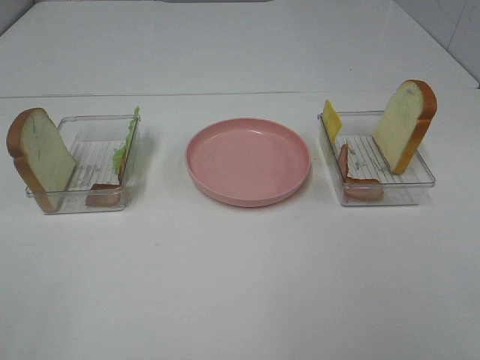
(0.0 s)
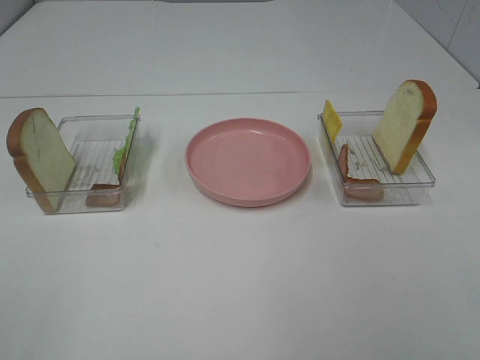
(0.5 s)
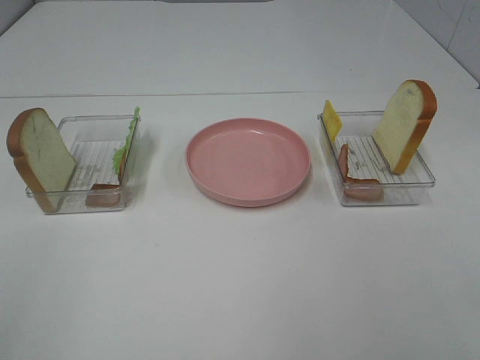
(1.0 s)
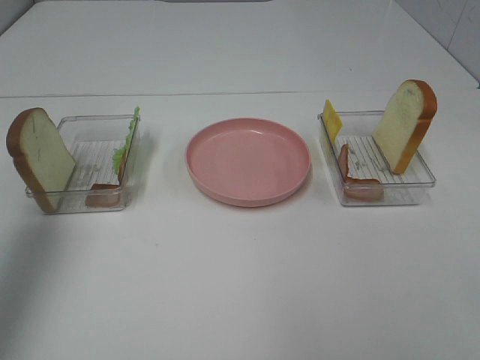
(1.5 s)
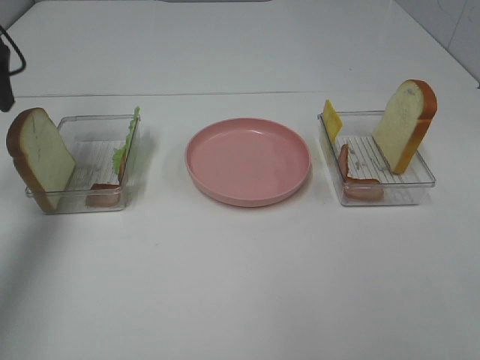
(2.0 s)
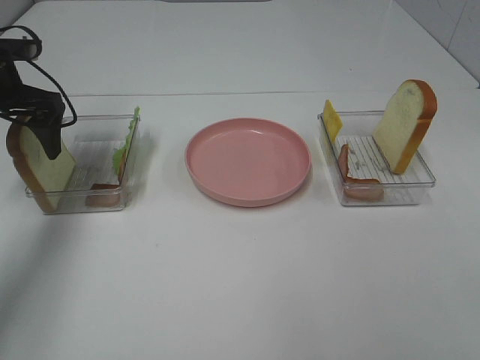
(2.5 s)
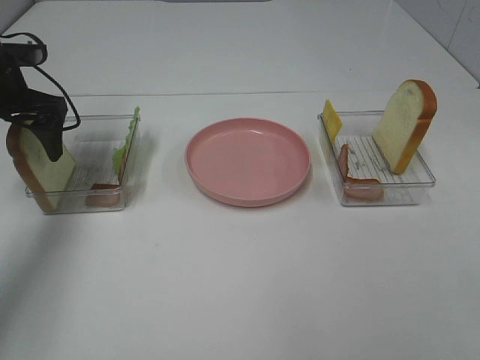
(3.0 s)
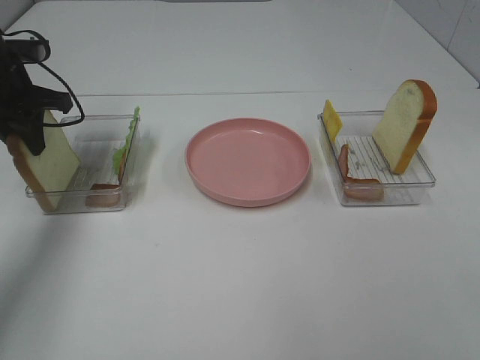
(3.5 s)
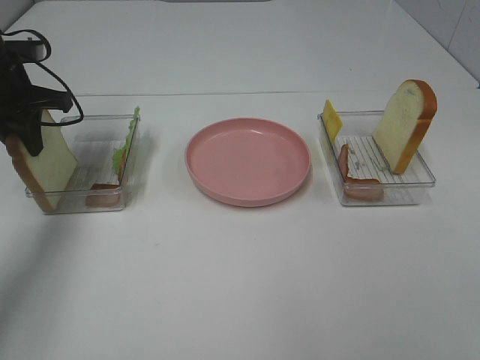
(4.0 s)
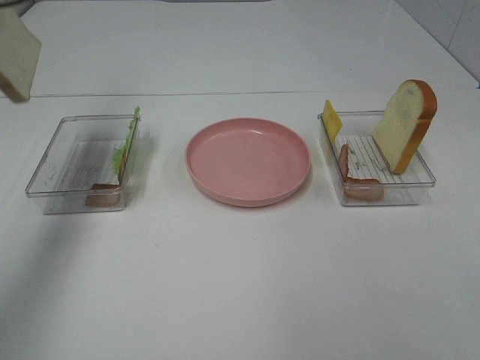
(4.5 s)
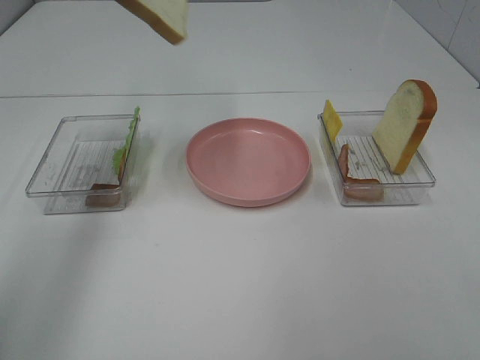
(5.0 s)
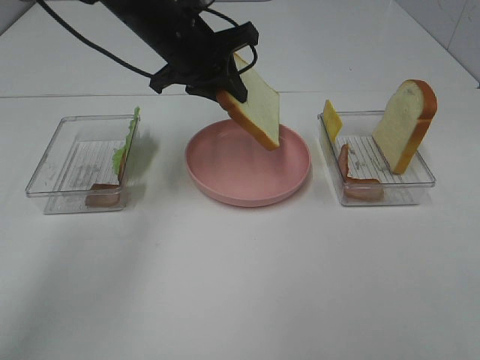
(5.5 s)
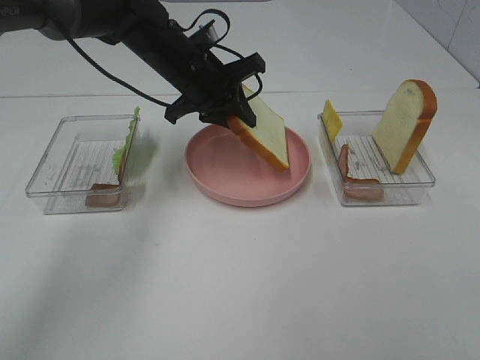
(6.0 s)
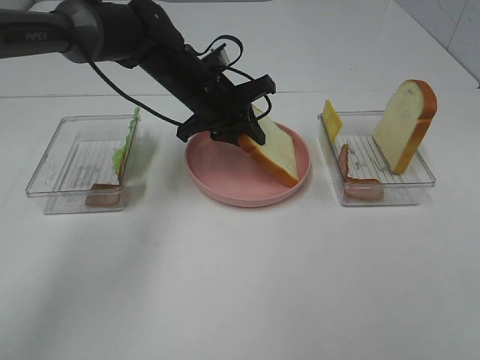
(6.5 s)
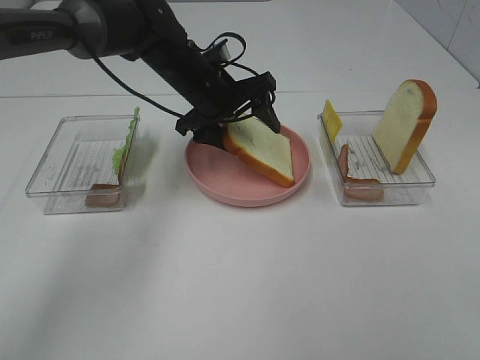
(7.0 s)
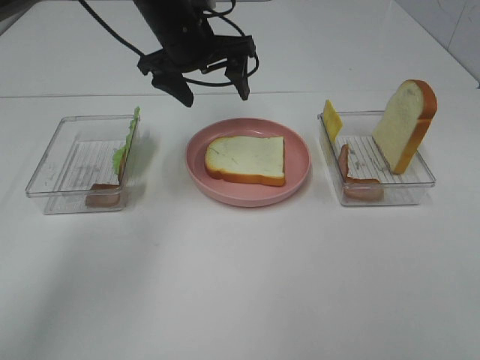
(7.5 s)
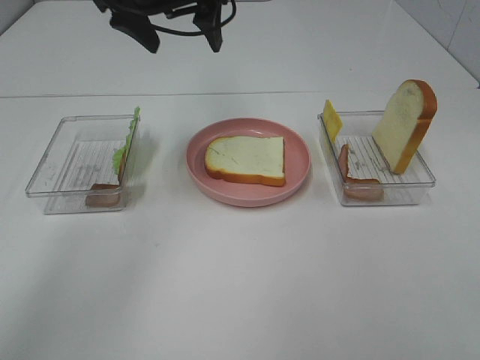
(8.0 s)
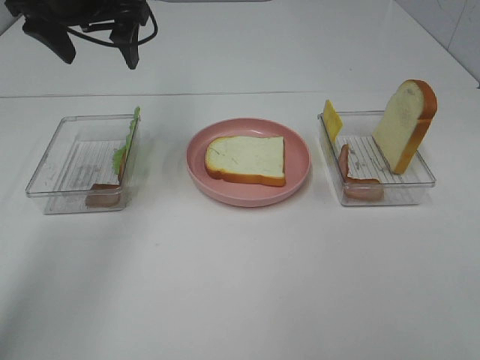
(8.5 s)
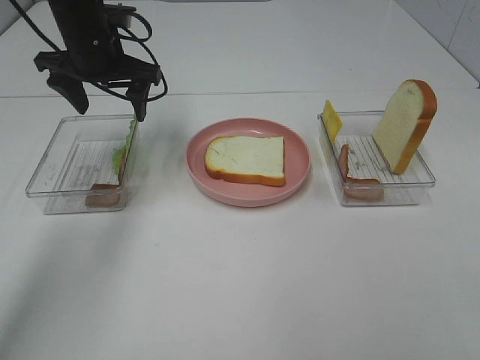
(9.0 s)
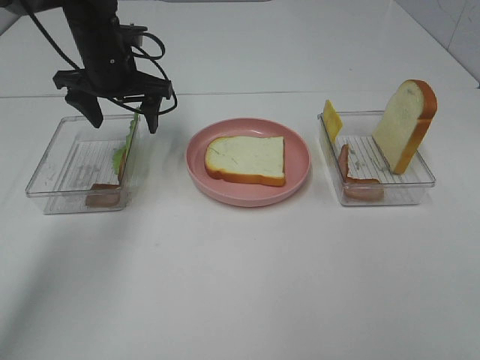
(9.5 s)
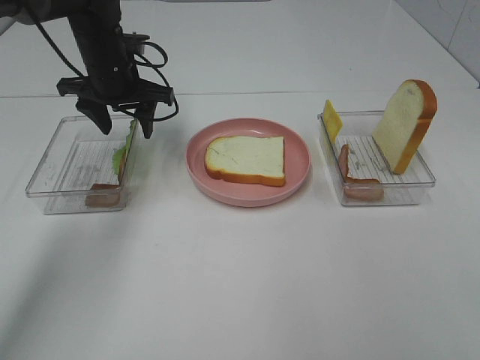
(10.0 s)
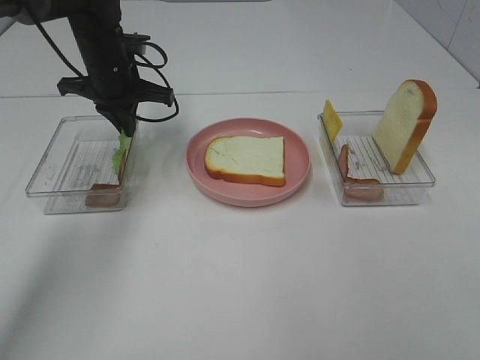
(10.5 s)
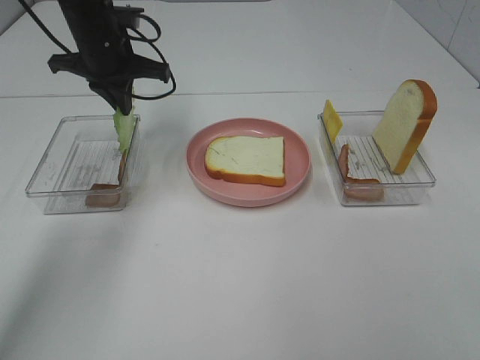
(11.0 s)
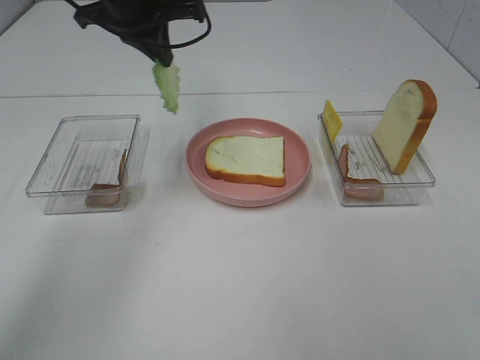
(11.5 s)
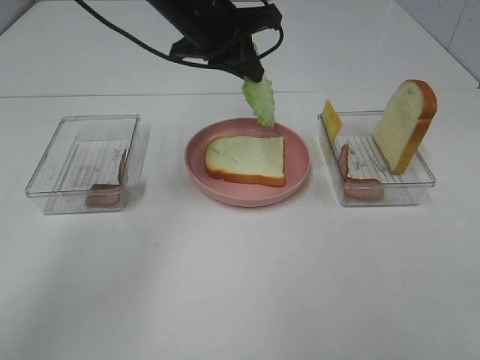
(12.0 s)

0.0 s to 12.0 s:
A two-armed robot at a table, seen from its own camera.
Task of the whole recording: Make sandwiches.
Step, 0.0 to 3.5 s: Left hand:grab the bread slice.
Step, 4.0 to 7.0 s: Left hand:place the bread slice on the plate.
Step, 7.5 to 10.5 s: Left hand:grab the lettuce slice.
0.0 to 2.0 s: The left gripper heads forward, covering about 40 cm.
2.0 to 4.0 s: The left gripper travels downward by some 5 cm, and closes its fingers.
4.0 to 6.0 s: The left gripper is displaced to the right by some 20 cm.
6.0 to 8.0 s: The left gripper heads upward, covering roughly 15 cm, and opens up.
8.0 to 10.0 s: The left gripper heads downward and to the left, covering some 15 cm.
10.0 to 12.0 s: The left gripper moves to the right and upward, some 15 cm, and closes.

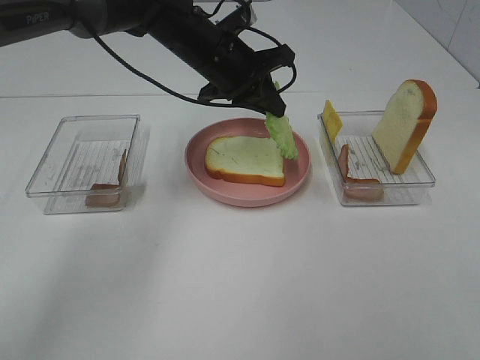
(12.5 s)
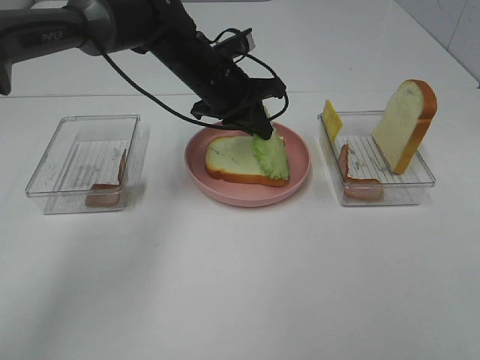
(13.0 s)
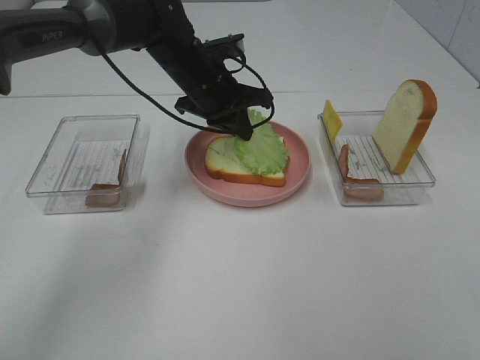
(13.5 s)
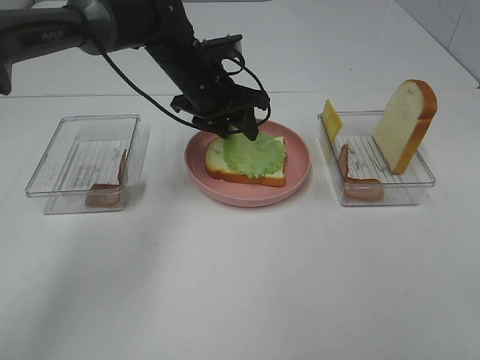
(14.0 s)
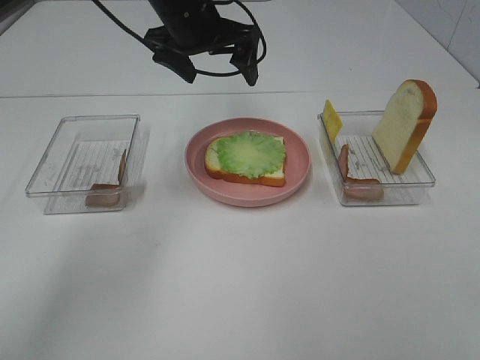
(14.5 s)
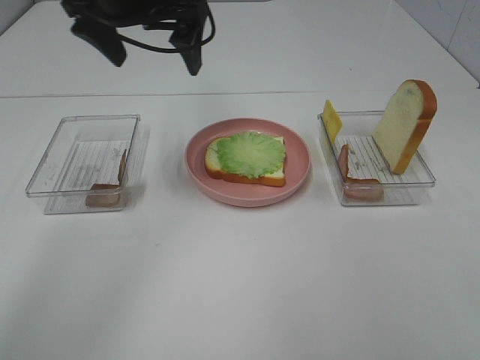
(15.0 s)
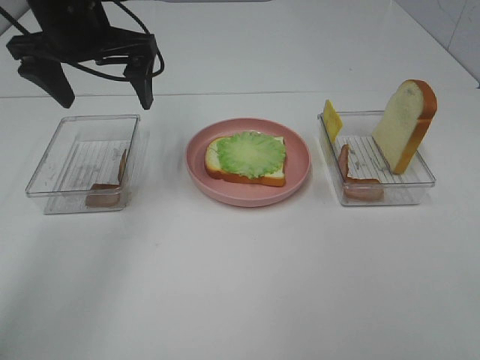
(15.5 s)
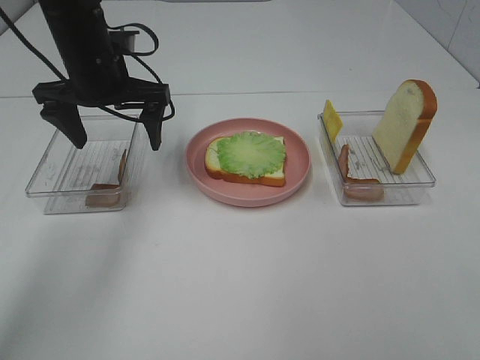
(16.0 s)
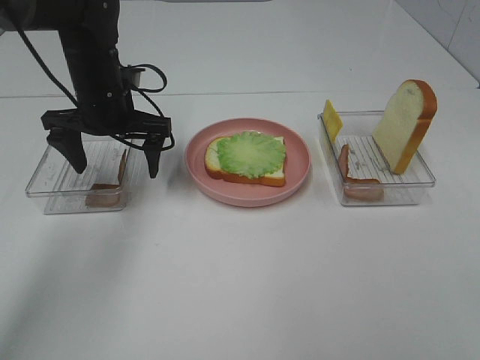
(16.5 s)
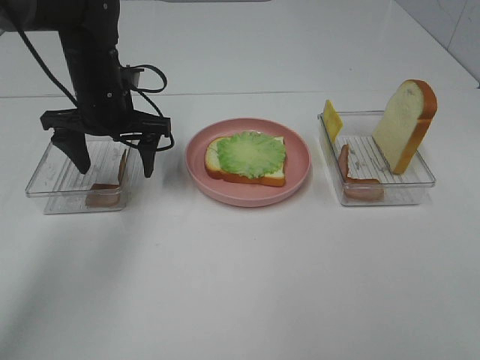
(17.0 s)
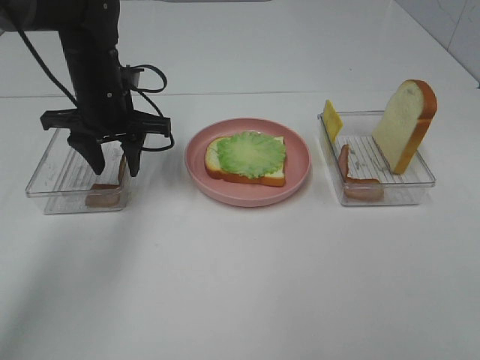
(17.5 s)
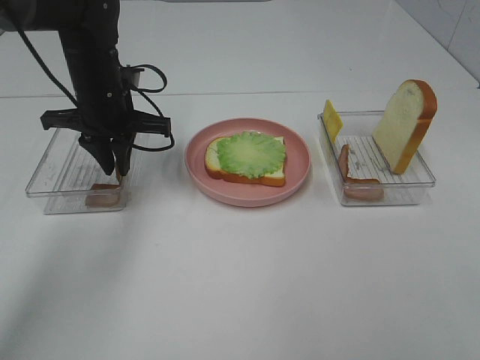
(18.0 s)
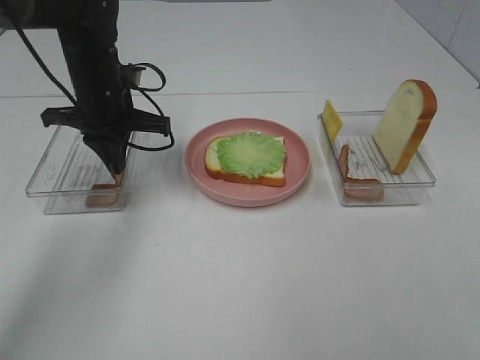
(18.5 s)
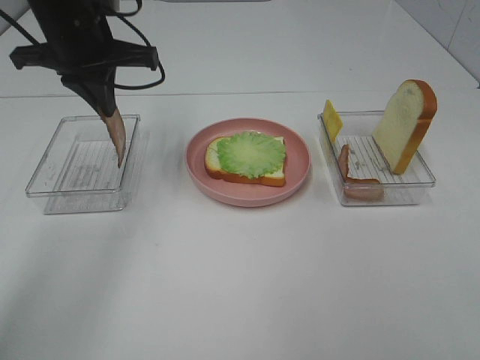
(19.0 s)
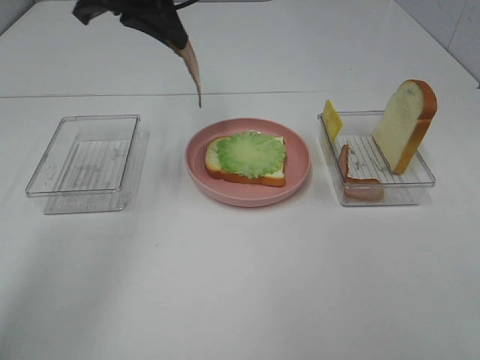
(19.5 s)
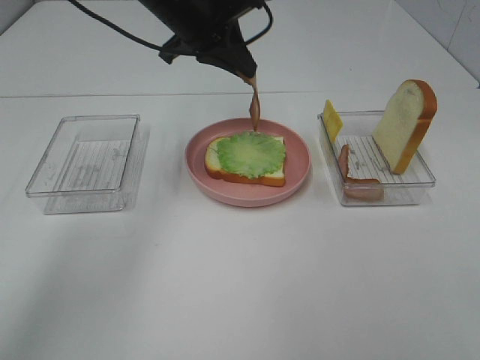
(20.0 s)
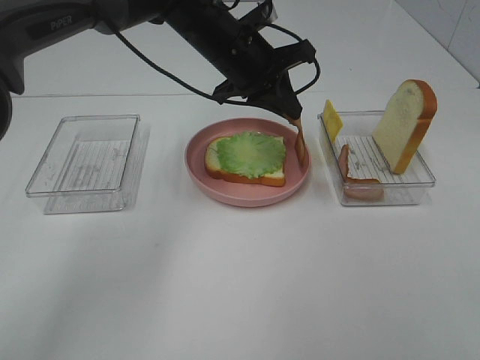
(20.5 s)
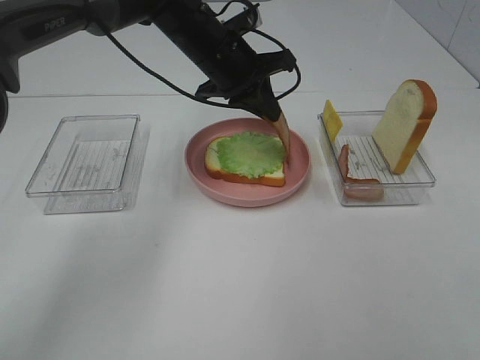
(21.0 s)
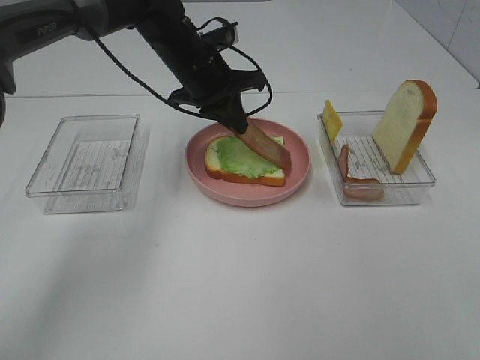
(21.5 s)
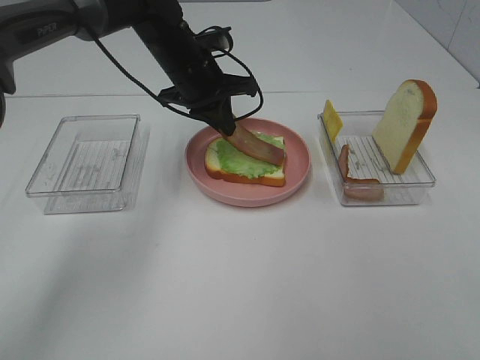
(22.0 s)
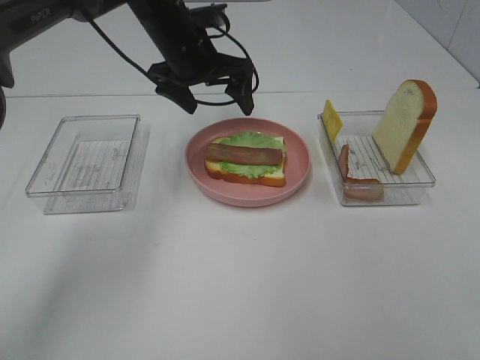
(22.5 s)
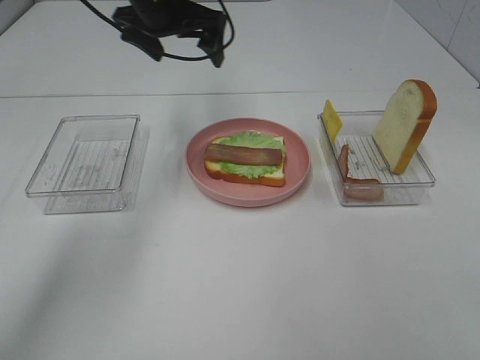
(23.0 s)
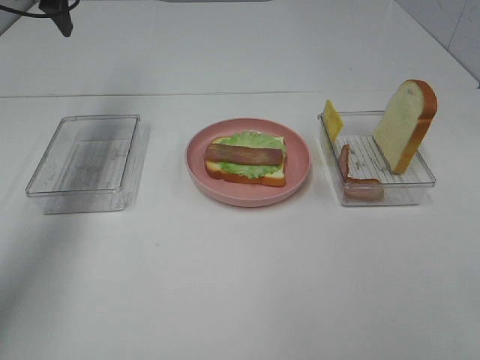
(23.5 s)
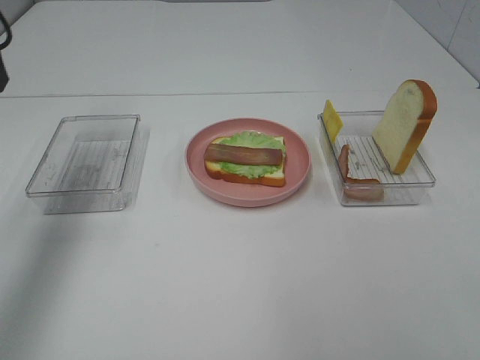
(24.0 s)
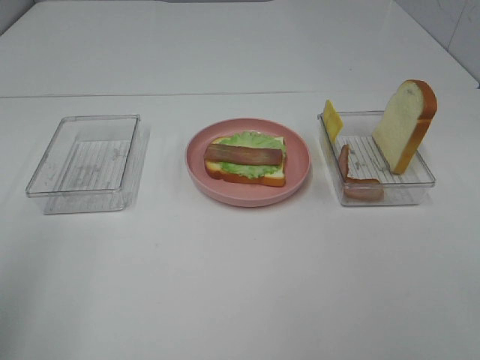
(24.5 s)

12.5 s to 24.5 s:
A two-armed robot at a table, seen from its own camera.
Task of the whole recording: Make sandwiches.
Step, 14.5 to 18.5 s: Left hand:grab the bacon.
Step, 19.0 to 22.5 s: Left hand:place bacon on lettuce slice.
12.5 to 14.5 s: The left gripper shifts roughly 5 cm upward, and opens its fingers.
14.5 to 16.5 s: The left gripper travels to the left and downward by about 15 cm.
16.5 to 18.5 s: The left gripper closes up.
18.5 to 20.5 s: The left gripper travels to the right by roughly 15 cm.
20.5 to 22.5 s: The left gripper is displaced to the left by about 5 cm, and opens.
22.5 to 24.5 s: The left gripper shifts about 40 cm backward and to the left.

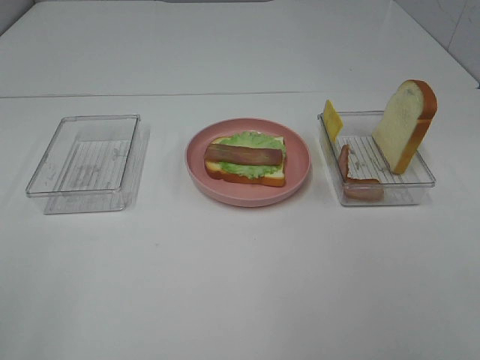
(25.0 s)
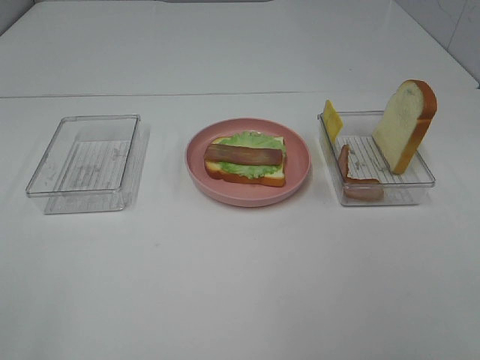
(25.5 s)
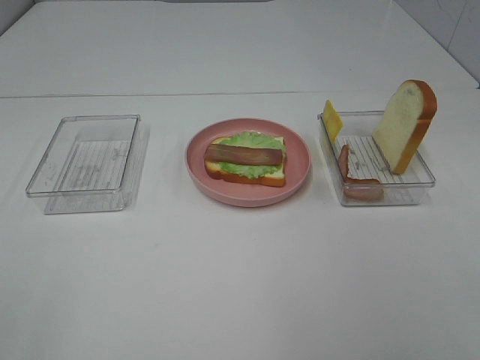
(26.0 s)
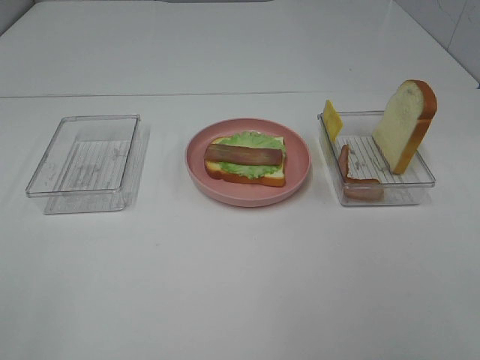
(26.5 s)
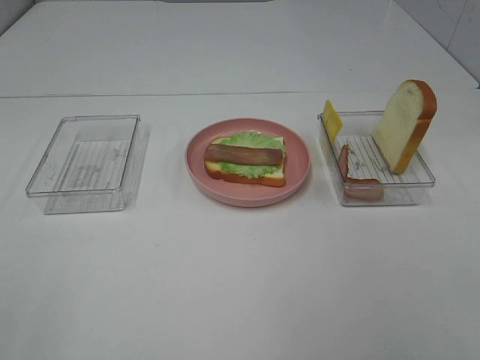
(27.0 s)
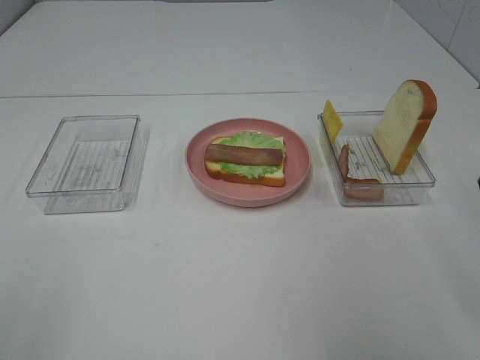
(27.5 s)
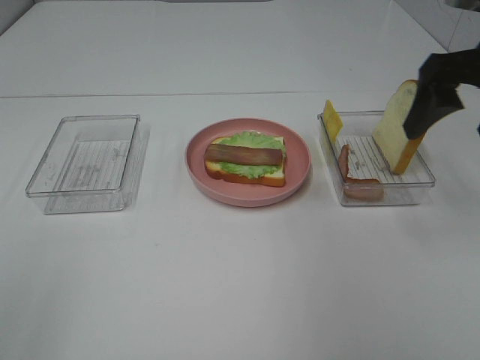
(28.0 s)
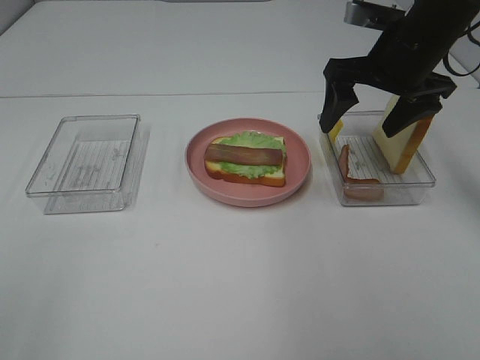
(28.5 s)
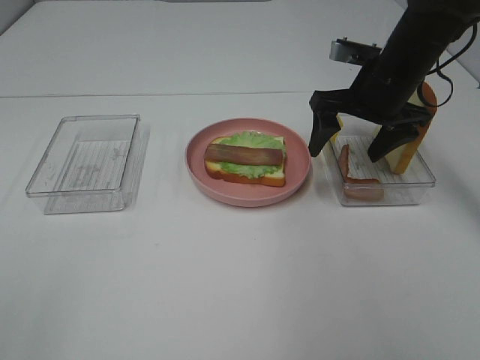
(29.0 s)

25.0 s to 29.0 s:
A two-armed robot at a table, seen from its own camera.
Task of the whole recording: Make sandwiches.
27.0 to 29.0 s: The right gripper moves forward, roughly 40 cm.
